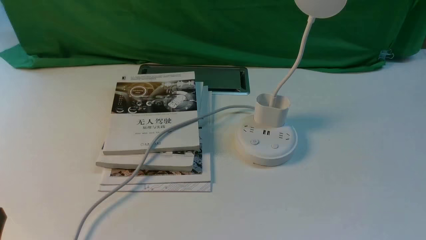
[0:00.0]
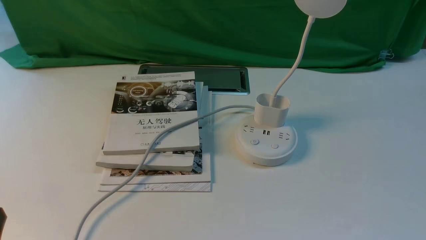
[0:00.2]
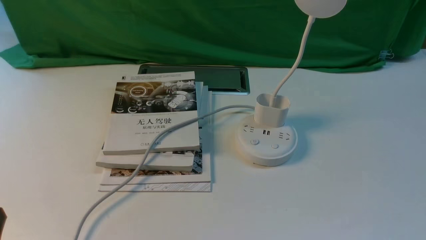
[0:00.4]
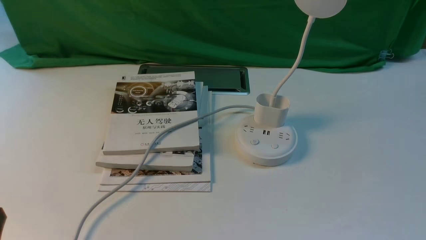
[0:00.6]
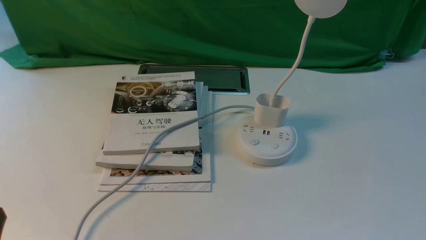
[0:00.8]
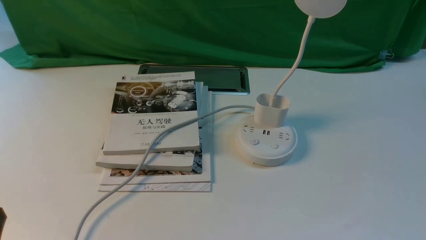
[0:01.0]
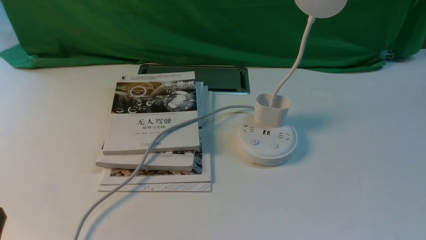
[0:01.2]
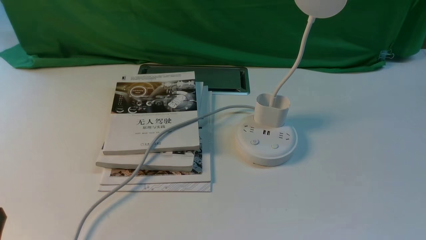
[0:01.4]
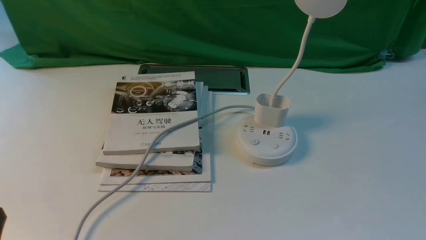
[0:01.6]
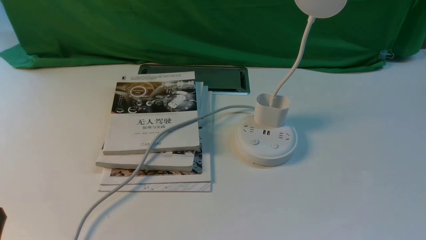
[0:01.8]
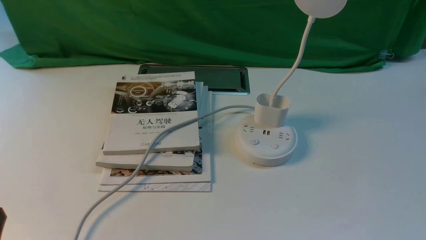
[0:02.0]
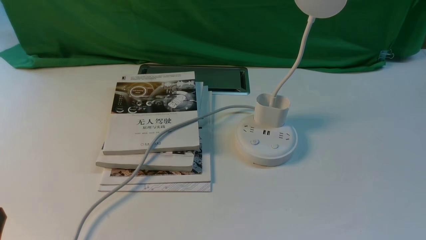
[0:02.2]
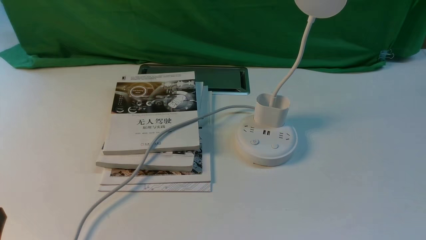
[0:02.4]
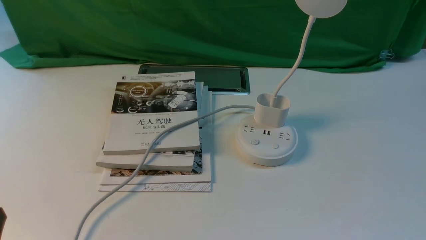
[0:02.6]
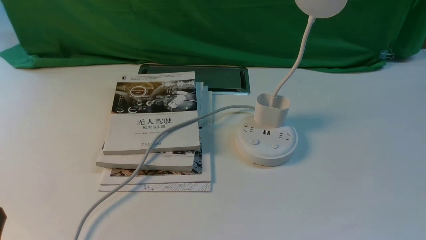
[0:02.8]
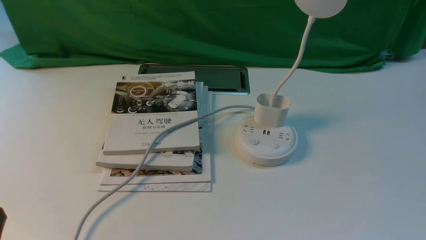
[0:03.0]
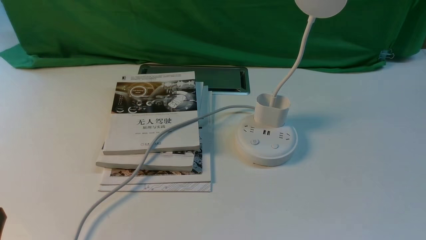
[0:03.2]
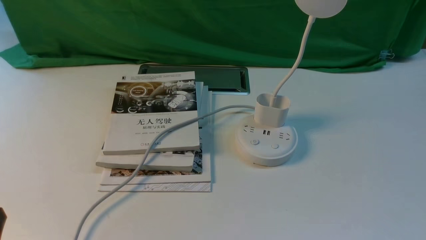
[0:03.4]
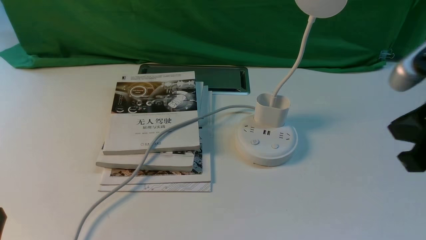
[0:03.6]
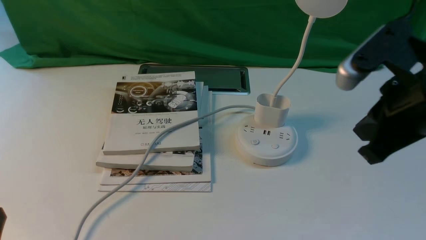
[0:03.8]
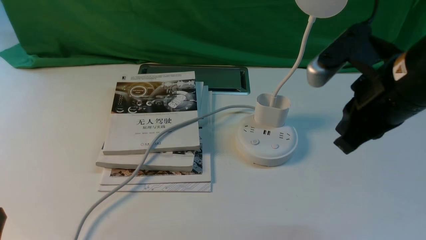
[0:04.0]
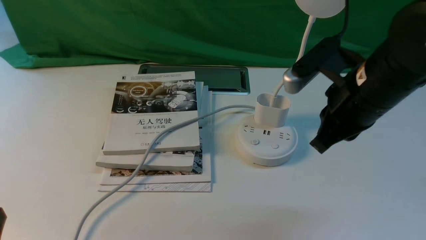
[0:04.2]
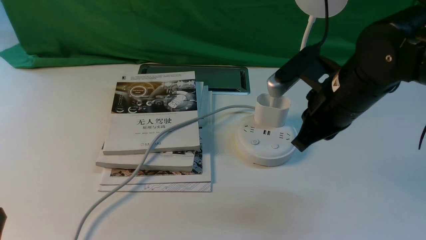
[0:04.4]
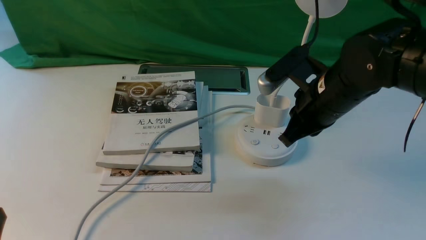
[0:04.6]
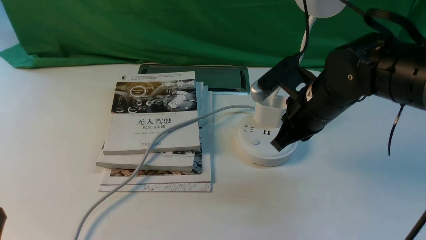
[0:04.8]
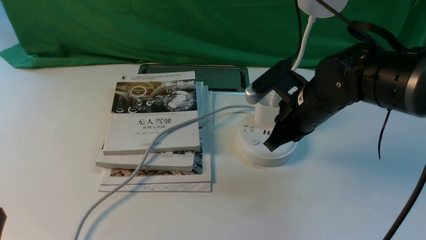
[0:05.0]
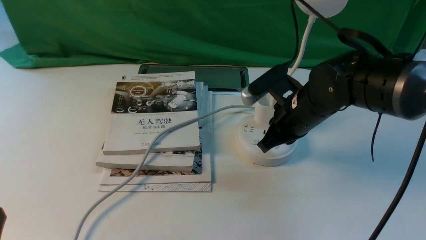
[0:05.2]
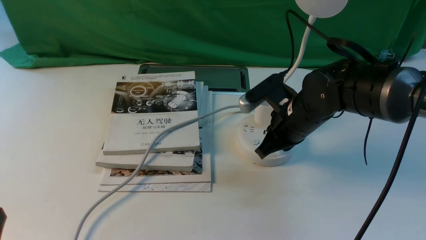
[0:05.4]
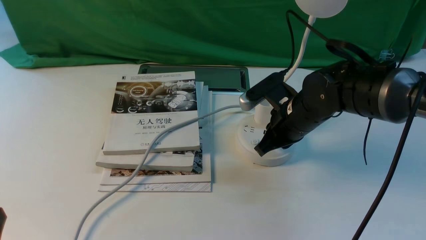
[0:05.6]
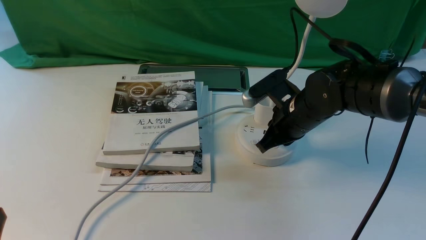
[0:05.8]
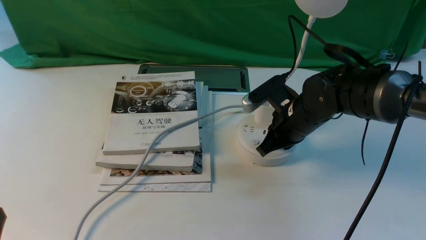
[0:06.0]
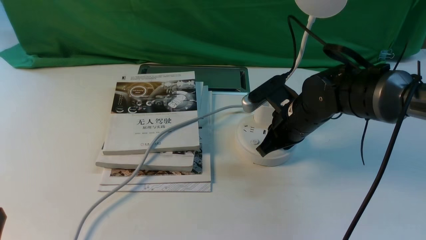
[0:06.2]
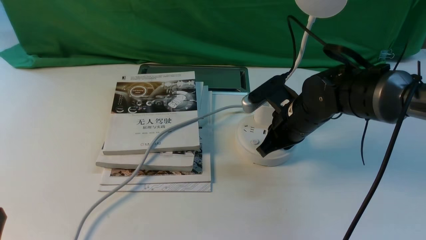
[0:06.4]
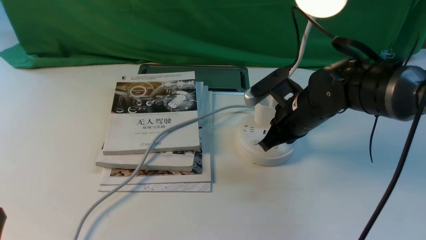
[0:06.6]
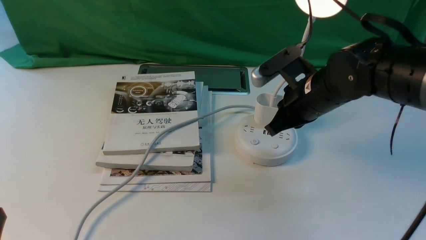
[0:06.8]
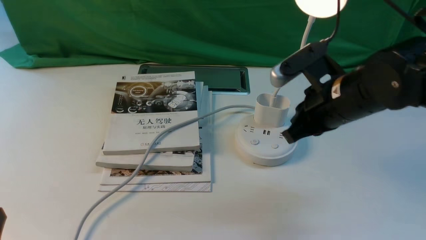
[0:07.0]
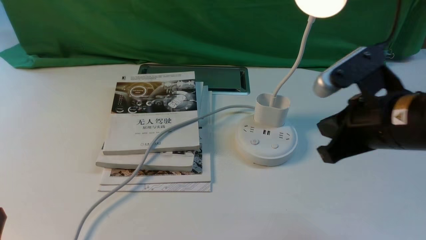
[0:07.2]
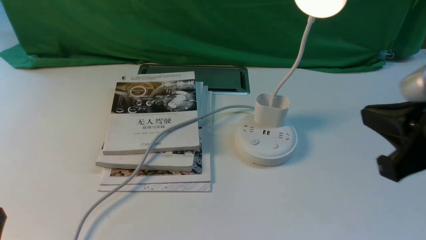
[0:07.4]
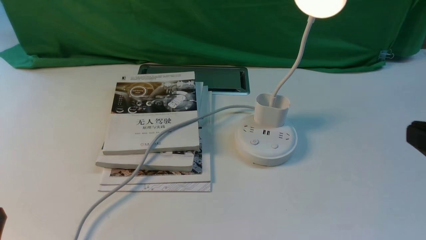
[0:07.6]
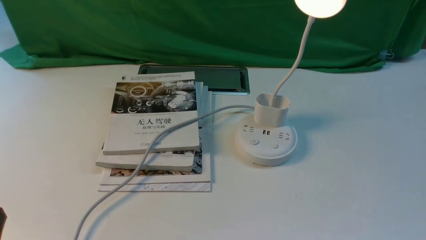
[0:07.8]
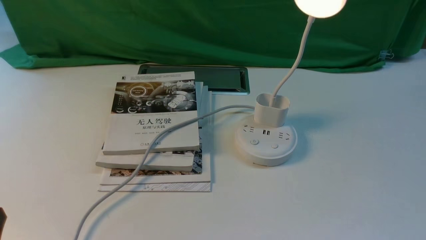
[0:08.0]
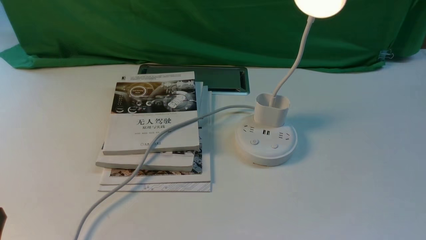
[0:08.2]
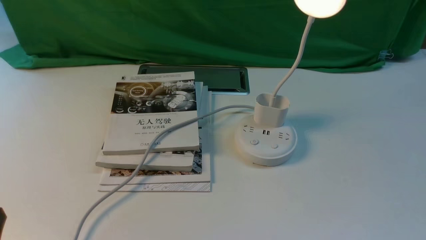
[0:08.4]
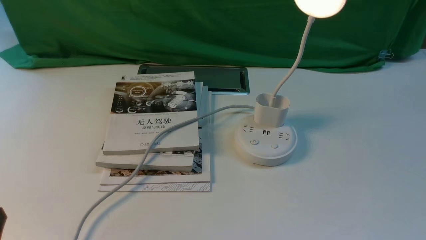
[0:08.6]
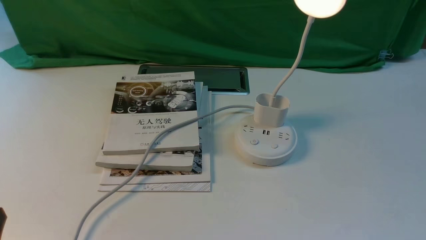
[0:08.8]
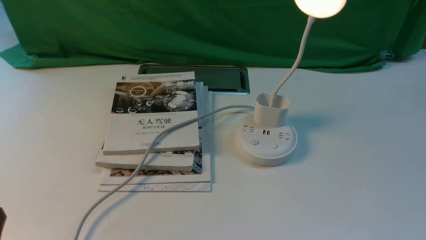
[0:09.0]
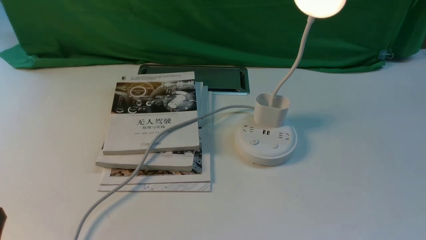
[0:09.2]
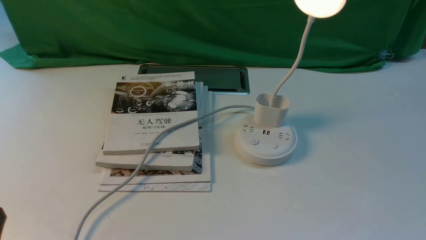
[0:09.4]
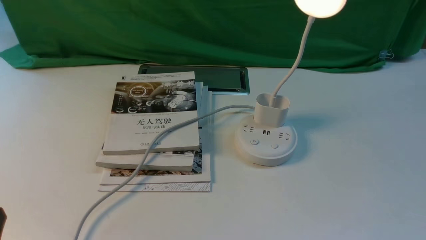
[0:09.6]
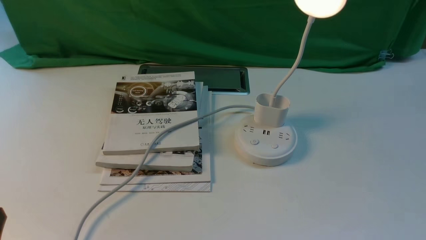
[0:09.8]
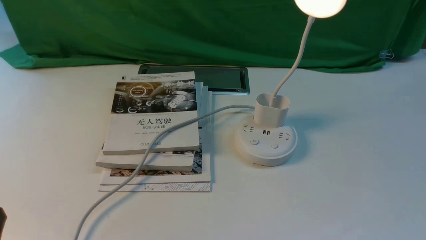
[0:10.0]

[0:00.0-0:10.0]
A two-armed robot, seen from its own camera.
Step, 0.0 to 6.6 s: use the right arm to press the button switch on the lamp holder.
0.0 to 1.4 s: Neither gripper changes place.
2.8 to 4.2 s: The right gripper travels forward and to the left by some 25 cm.
4.2 to 5.8 s: The right gripper heads downward and forward, covering about 15 cm.
5.8 to 7.2 s: The right gripper goes roughly 20 cm backward, upward and to the right.
7.2 to 8.6 s: The right gripper heads backward, to the right and downward, covering approximately 20 cm, and opens up.

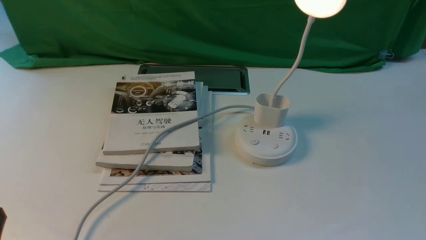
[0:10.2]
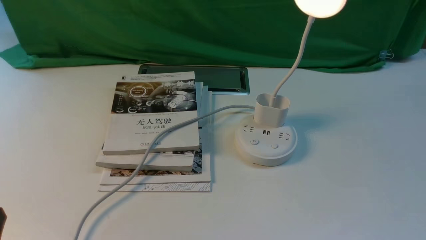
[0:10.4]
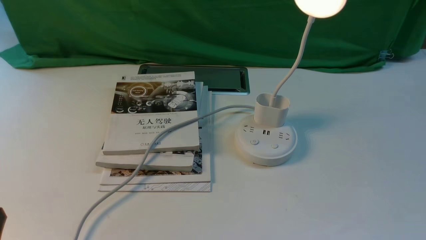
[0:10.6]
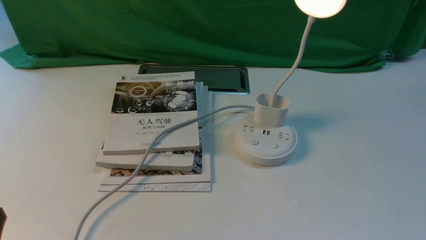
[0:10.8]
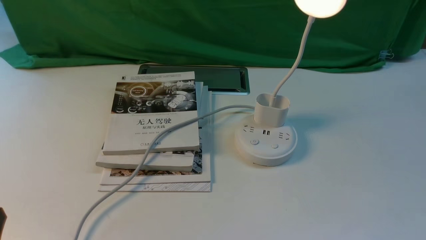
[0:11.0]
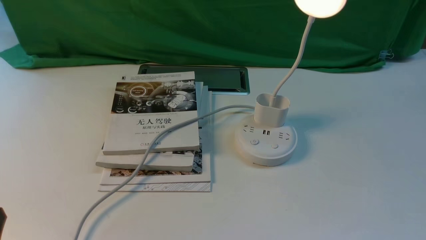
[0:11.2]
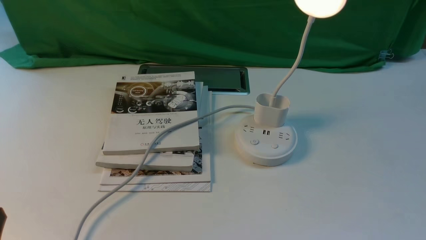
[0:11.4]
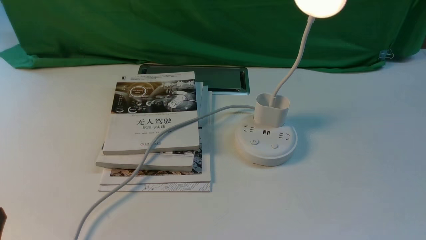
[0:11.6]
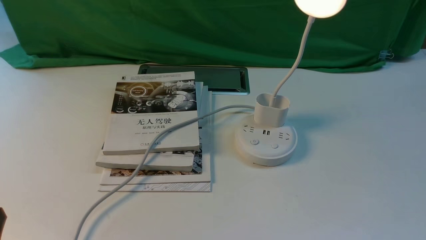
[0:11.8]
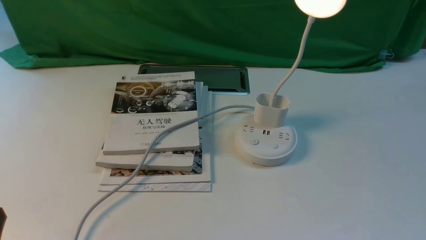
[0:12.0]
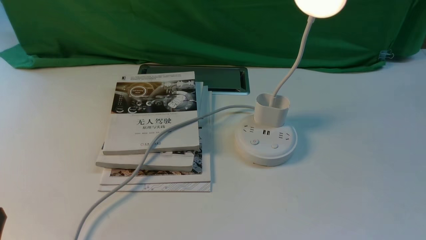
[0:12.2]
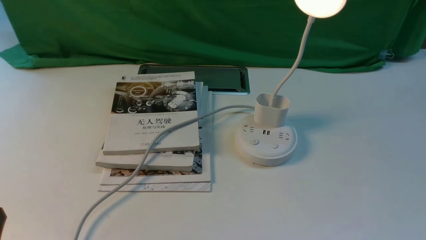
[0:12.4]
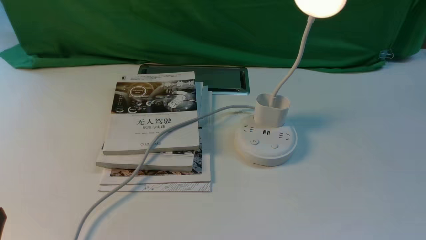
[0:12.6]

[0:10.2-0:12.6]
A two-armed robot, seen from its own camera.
10.2 to 12.6 s: Both grippers stay put.

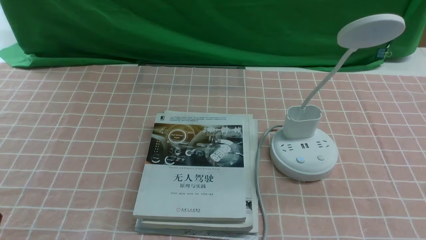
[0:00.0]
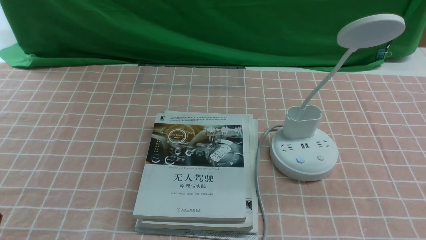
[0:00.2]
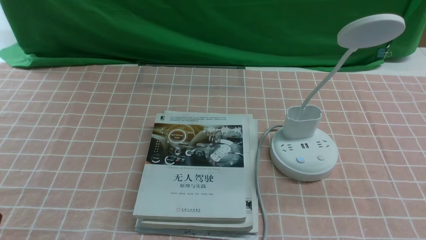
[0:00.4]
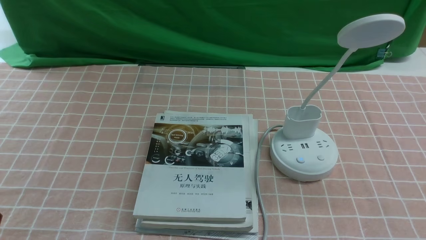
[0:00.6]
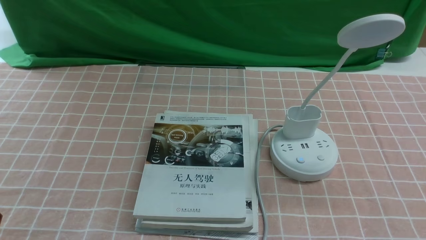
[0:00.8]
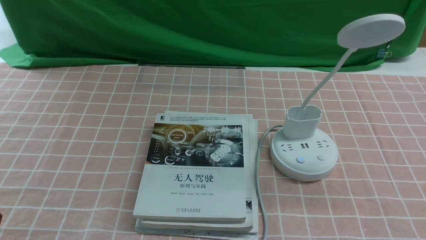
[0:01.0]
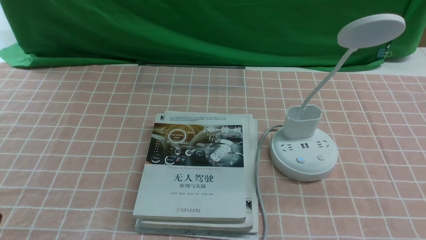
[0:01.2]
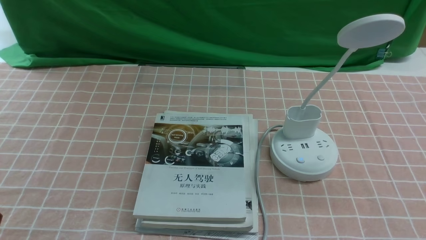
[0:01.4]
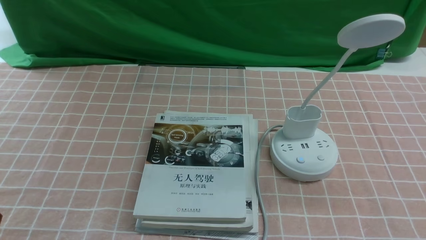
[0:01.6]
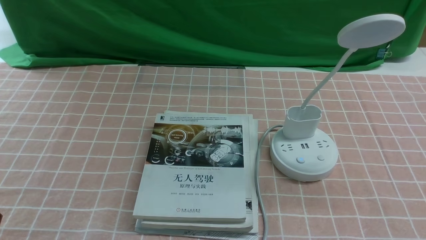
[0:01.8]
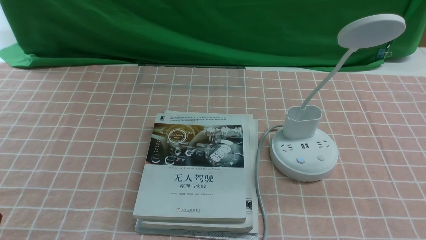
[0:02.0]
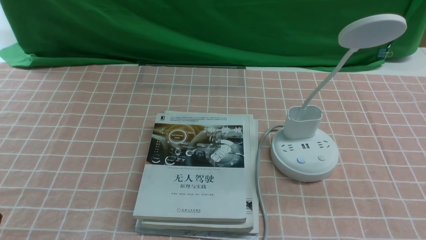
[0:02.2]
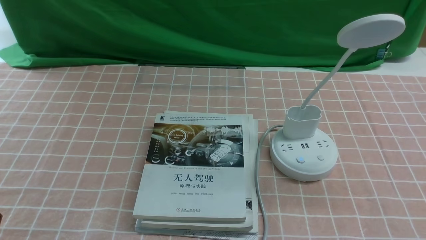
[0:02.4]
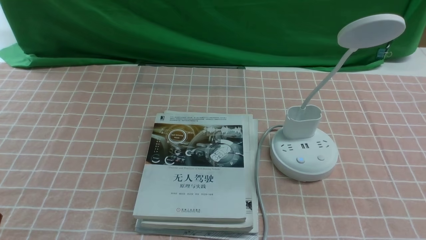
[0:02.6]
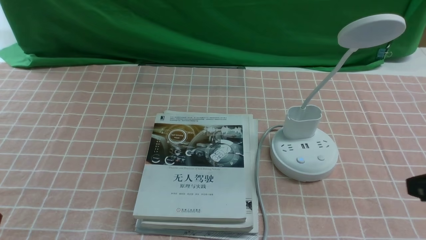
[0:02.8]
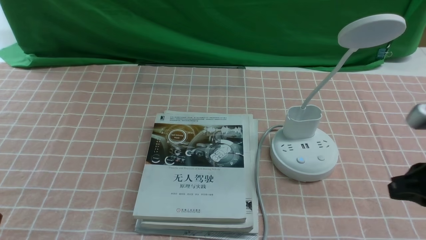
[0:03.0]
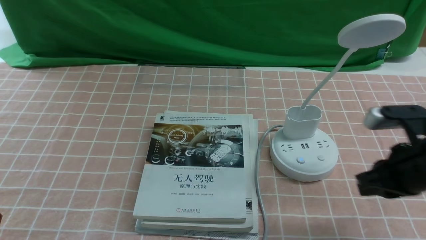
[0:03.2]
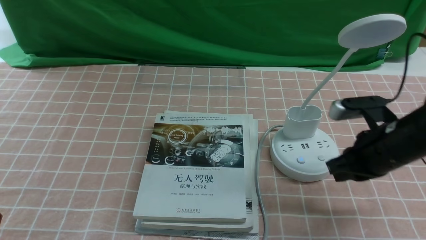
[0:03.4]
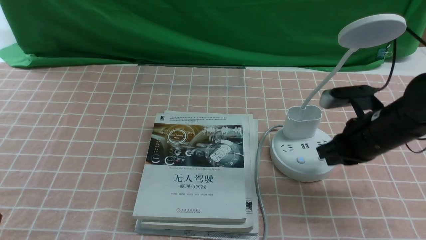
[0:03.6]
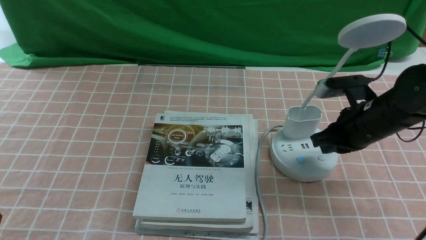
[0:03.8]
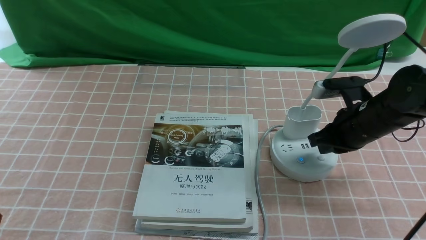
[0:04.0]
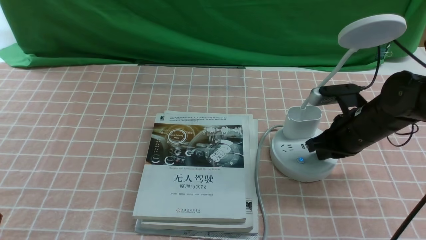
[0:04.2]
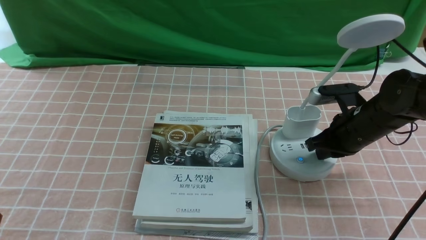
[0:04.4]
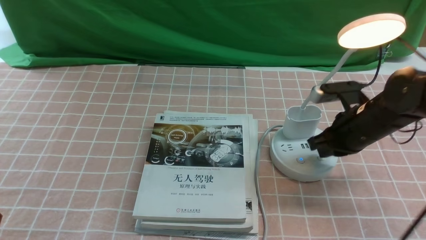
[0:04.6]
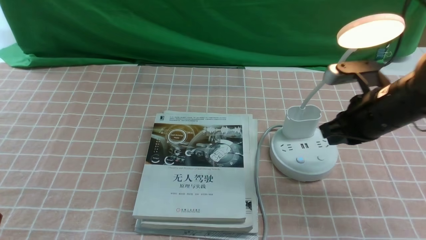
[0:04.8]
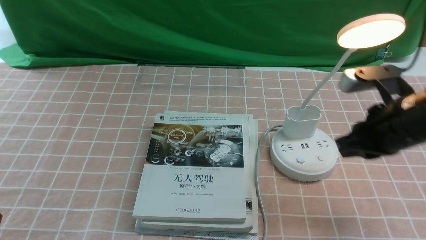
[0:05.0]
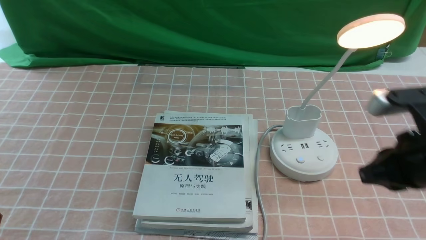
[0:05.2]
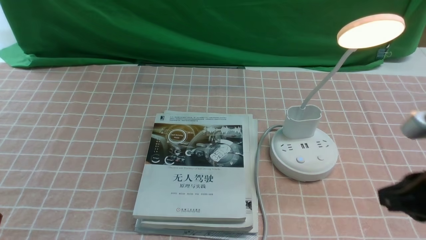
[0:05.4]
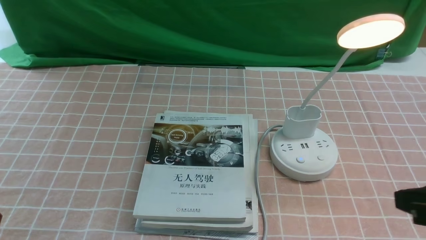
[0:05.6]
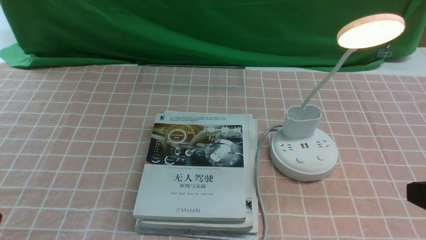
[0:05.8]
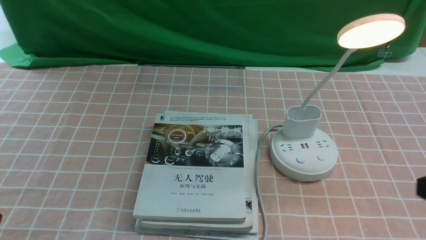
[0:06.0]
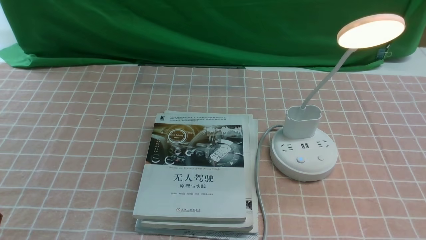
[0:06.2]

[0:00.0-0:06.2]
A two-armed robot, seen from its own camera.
Step, 0.0 to 4.8 s: use the right arm to press the button switch on the lamp holder.
1.6 to 3.2 s: The right gripper is displaced forward by some 20 cm, and closes up.
3.2 to 4.6 s: The right gripper shifts approximately 10 cm forward.
4.6 to 6.2 s: The right gripper moves backward, approximately 25 cm.
